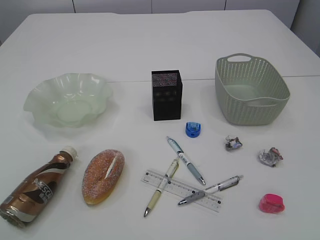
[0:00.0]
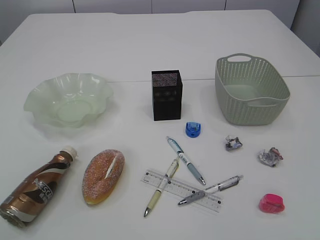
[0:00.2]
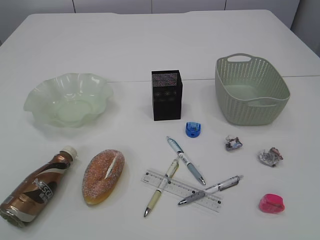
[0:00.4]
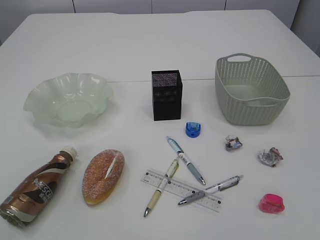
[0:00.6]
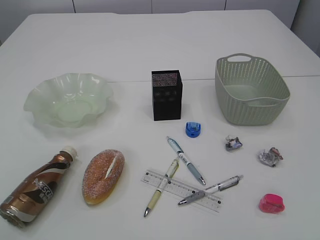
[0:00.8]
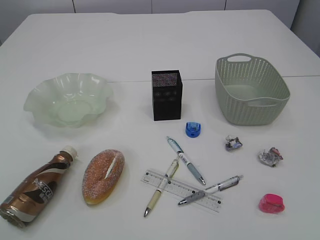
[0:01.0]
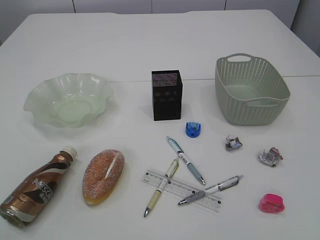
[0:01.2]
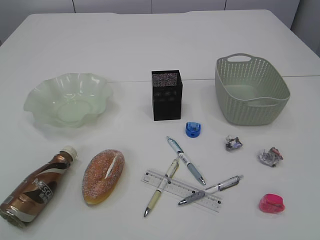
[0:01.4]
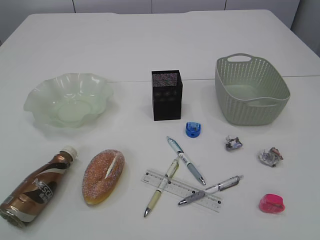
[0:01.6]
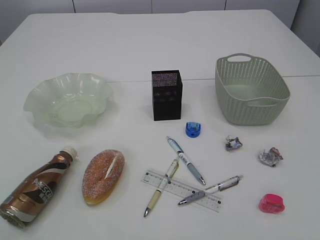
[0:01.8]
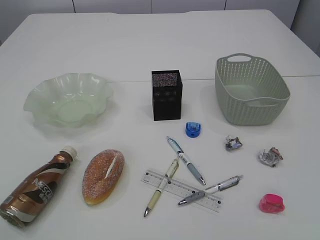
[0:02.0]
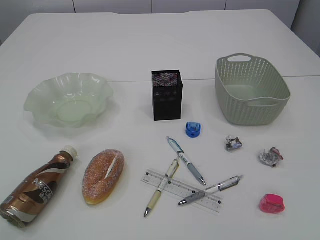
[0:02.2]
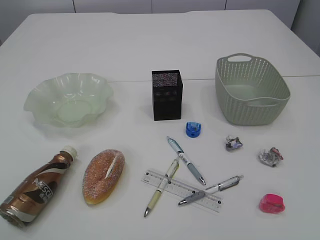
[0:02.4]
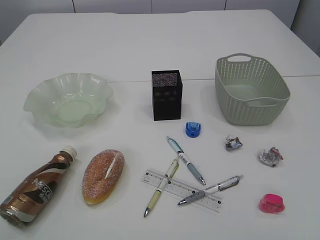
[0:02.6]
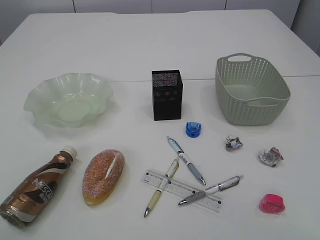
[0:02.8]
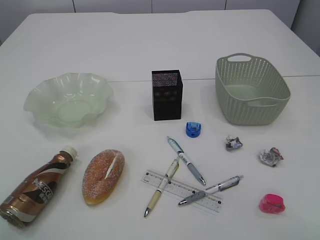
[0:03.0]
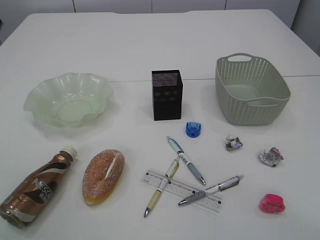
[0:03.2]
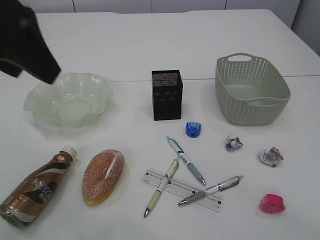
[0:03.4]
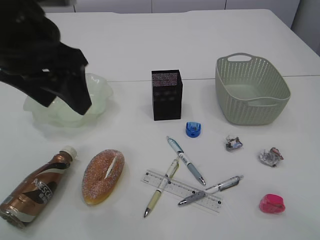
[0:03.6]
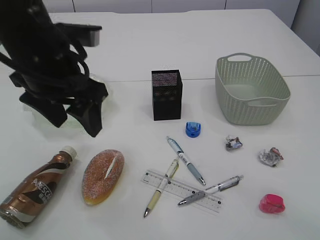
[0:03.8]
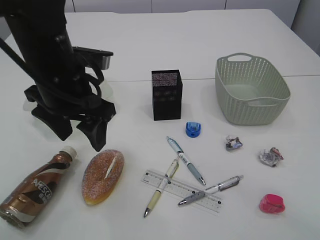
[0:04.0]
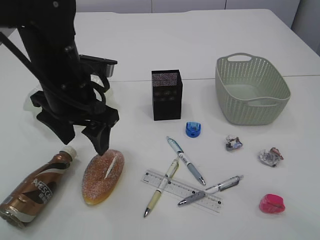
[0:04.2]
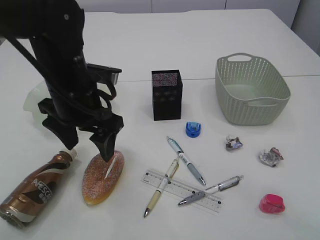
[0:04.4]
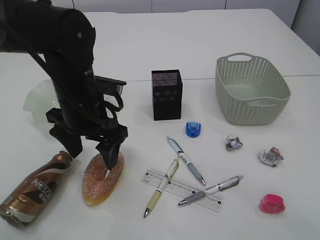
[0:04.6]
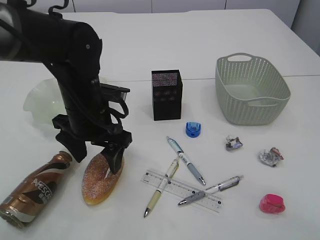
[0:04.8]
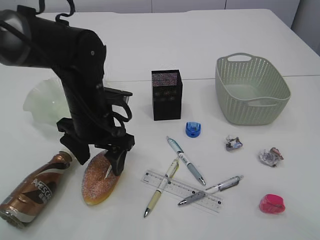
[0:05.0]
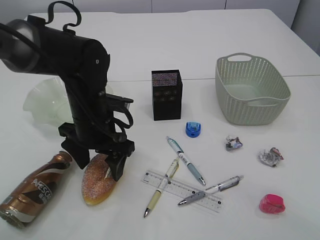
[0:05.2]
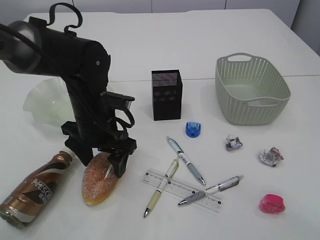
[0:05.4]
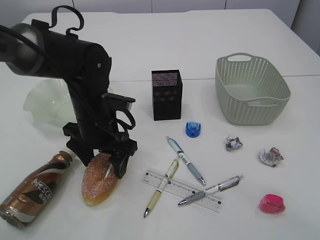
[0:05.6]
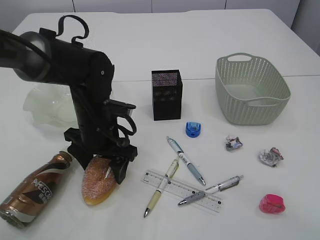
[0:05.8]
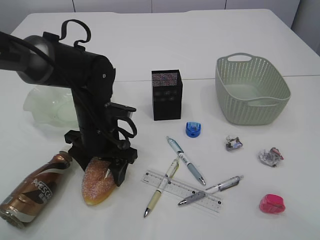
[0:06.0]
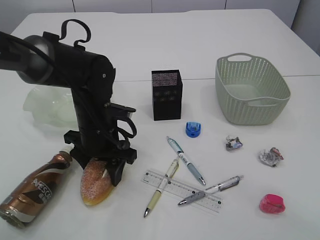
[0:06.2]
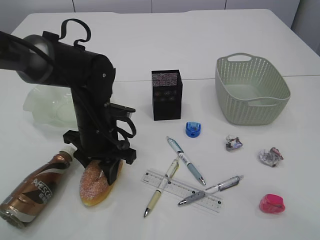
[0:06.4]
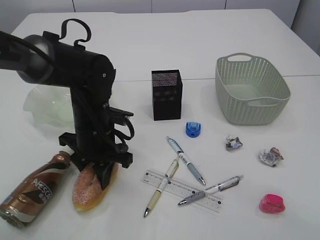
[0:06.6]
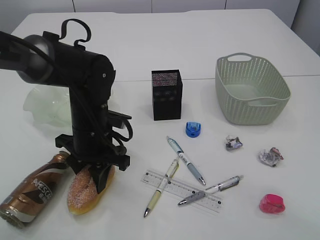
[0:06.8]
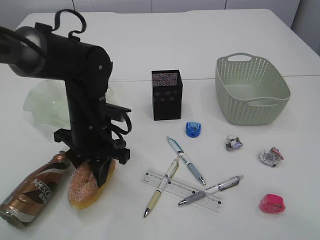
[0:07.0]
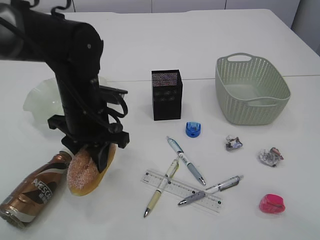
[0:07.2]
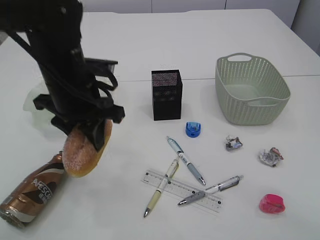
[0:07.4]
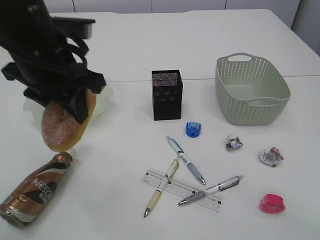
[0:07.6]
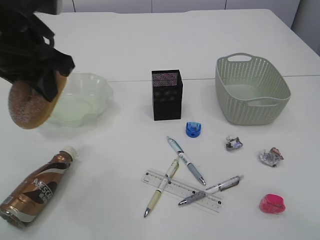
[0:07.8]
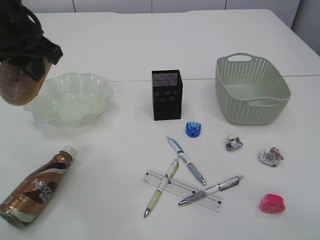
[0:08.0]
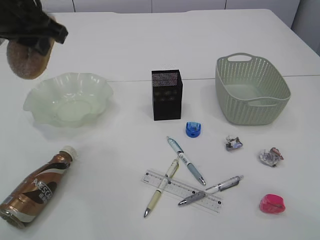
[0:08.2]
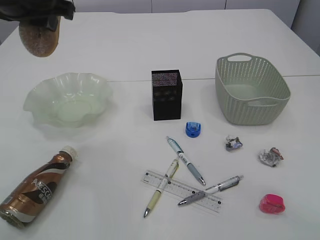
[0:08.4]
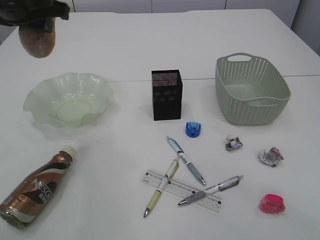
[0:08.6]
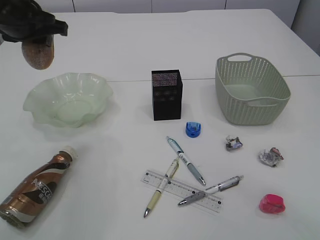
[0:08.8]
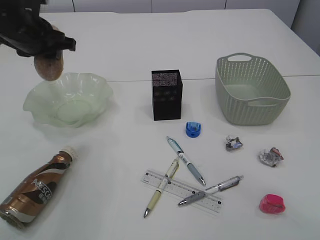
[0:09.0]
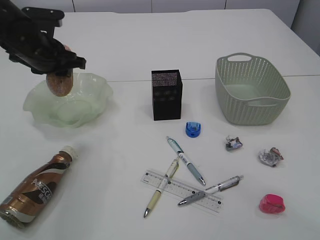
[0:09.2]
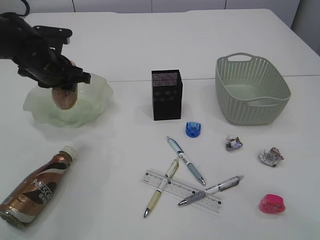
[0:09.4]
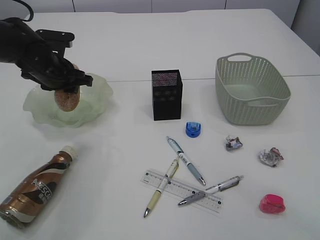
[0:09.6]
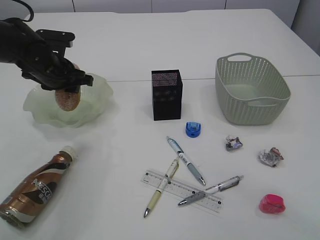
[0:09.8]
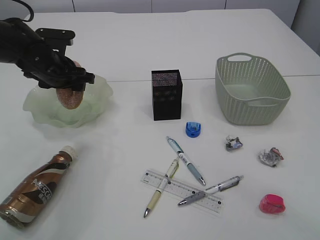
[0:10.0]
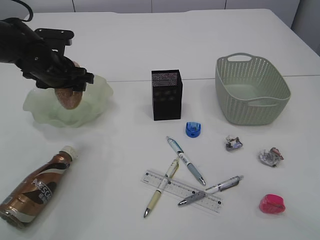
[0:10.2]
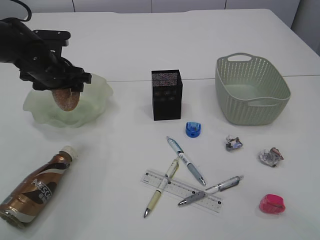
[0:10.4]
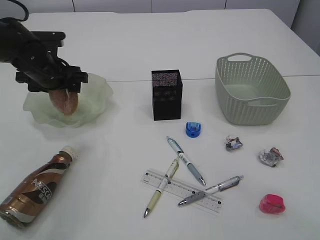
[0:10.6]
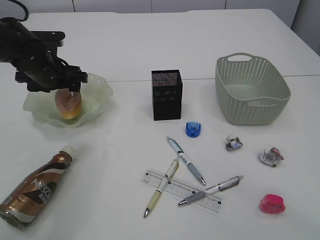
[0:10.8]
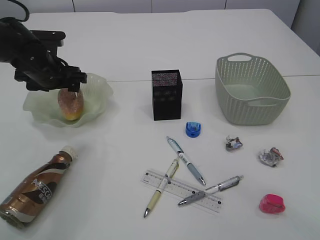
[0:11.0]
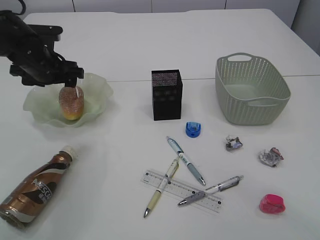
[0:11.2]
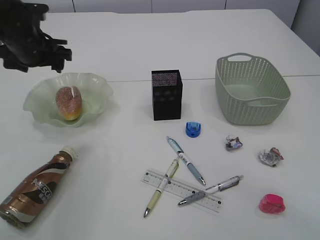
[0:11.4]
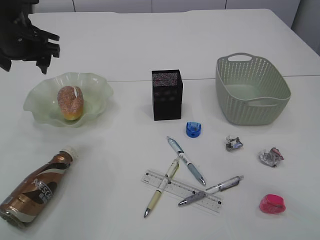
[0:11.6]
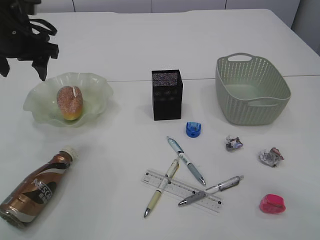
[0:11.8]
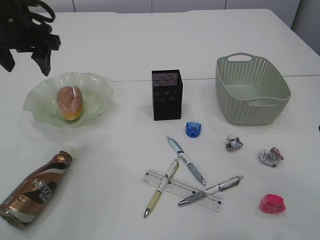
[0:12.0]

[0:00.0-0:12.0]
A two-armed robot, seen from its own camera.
Step, 0:07.6 to 0:11.2: place the bread in the plate.
0:03.0 to 0:04.4: The right gripper travels forward by some 5 cm. The left gripper is displaced downward, forward and to the right by approximately 30 cm.
0:04.4 to 0:06.0: The left gripper travels downward by about 10 cm.
0:06.0 to 0:07.6: The left gripper is displaced upward by some 15 cm, and closes up.
0:07.6 to 0:09.0: The left gripper is displaced forward and to the left by about 15 cm.
0:09.0 to 0:10.4: The left gripper heads downward, covering approximately 10 cm, and opens.
0:10.4 to 0:12.0: The left gripper is displaced upward by roughly 10 cm.

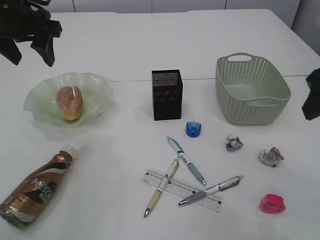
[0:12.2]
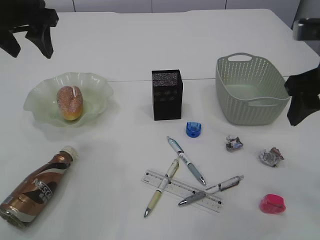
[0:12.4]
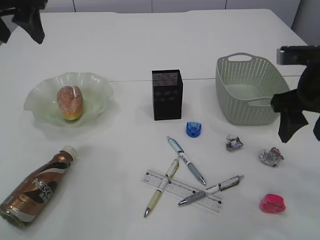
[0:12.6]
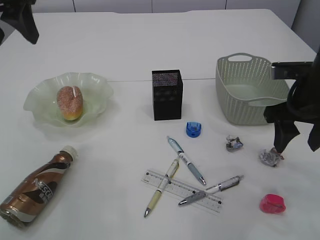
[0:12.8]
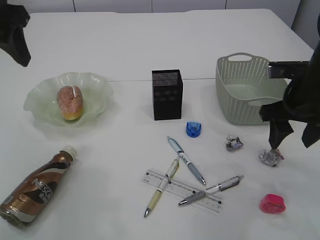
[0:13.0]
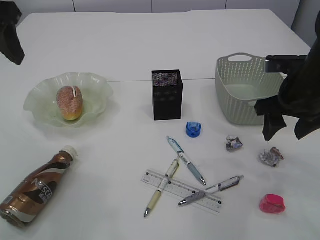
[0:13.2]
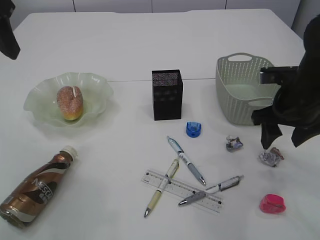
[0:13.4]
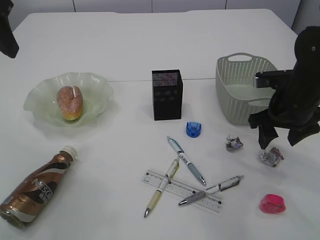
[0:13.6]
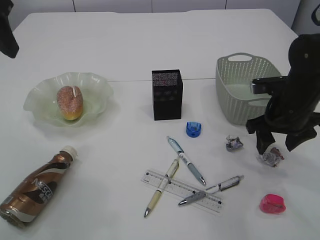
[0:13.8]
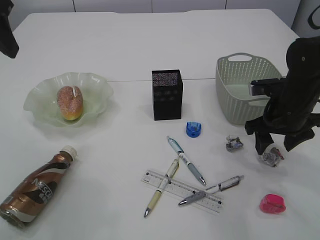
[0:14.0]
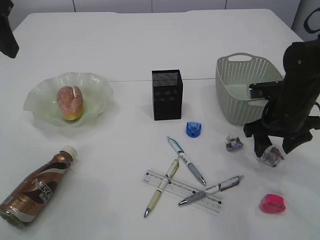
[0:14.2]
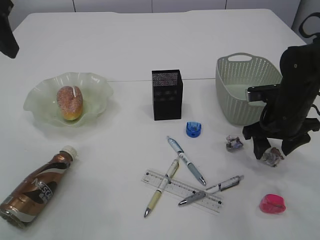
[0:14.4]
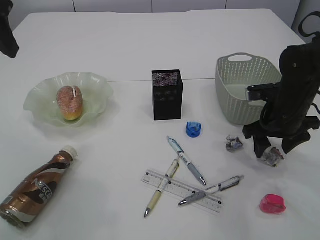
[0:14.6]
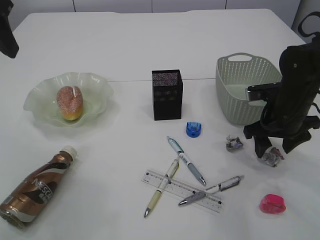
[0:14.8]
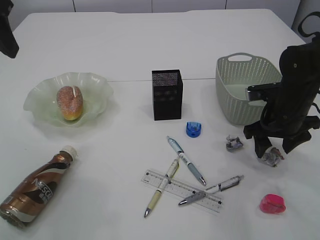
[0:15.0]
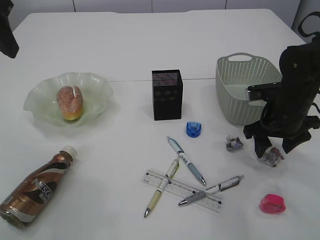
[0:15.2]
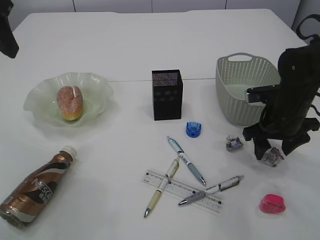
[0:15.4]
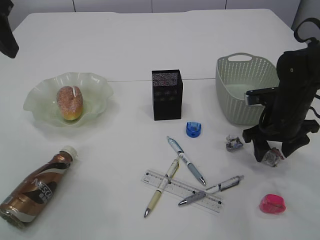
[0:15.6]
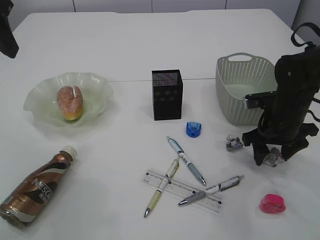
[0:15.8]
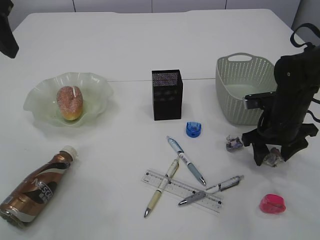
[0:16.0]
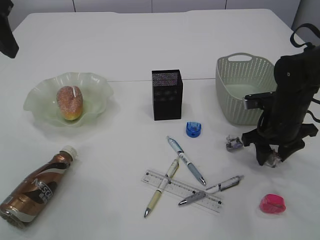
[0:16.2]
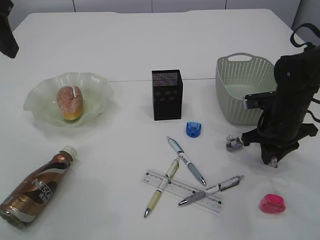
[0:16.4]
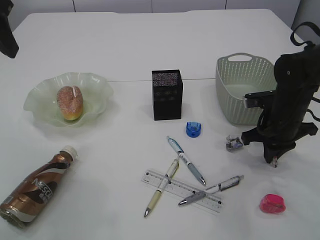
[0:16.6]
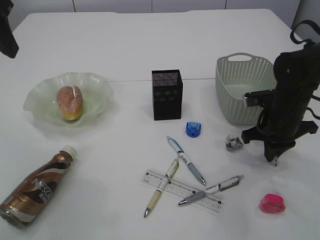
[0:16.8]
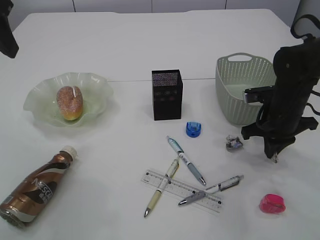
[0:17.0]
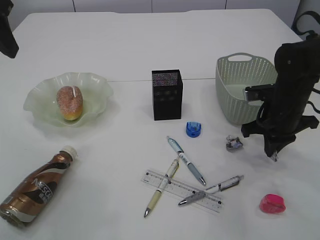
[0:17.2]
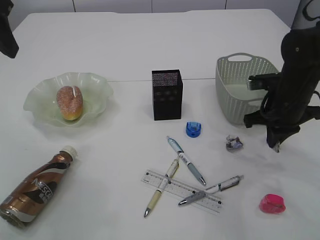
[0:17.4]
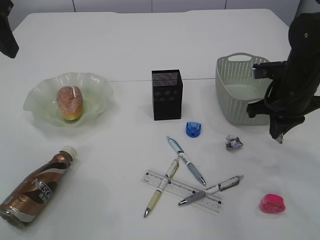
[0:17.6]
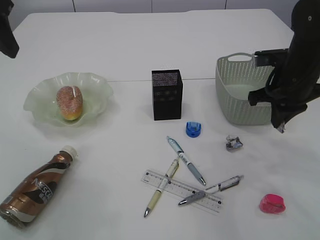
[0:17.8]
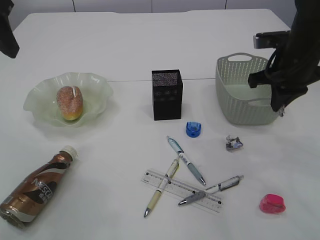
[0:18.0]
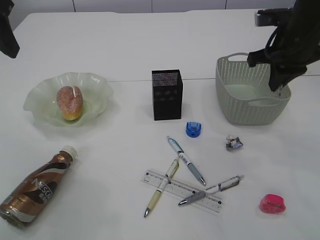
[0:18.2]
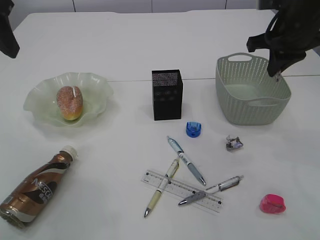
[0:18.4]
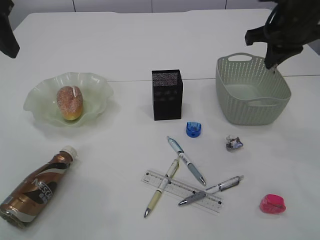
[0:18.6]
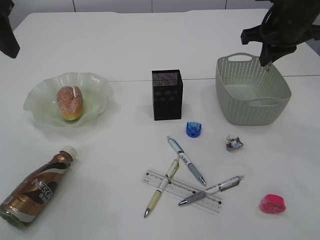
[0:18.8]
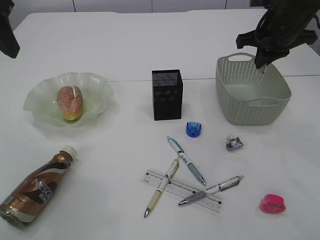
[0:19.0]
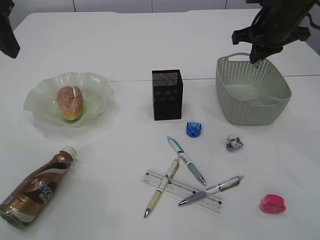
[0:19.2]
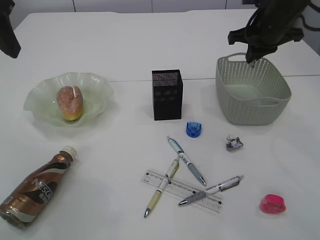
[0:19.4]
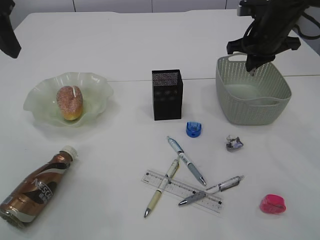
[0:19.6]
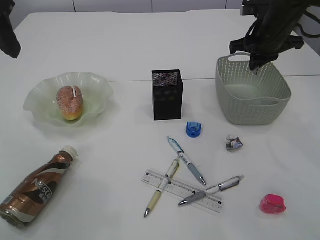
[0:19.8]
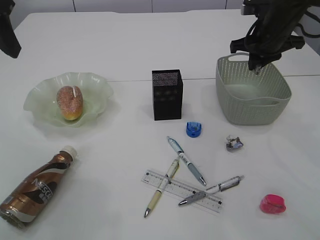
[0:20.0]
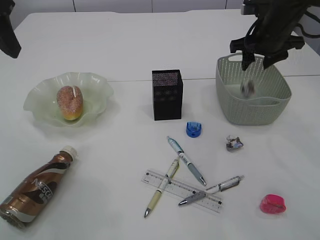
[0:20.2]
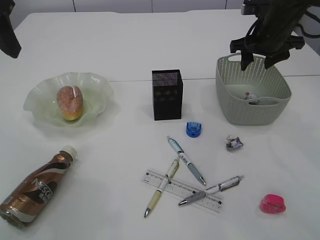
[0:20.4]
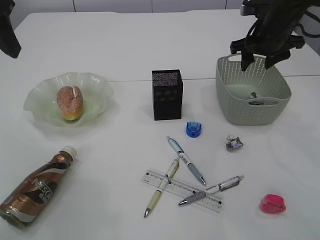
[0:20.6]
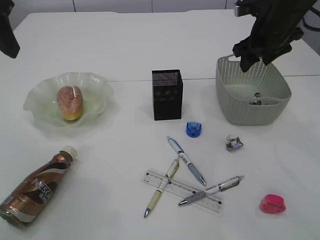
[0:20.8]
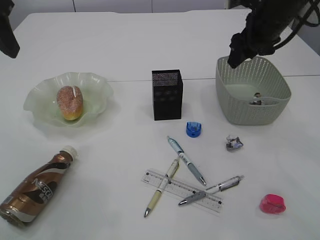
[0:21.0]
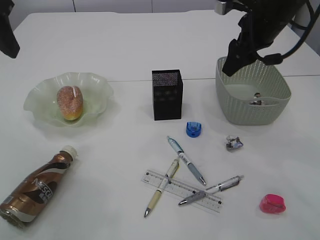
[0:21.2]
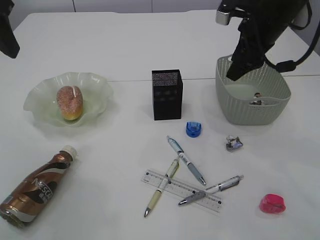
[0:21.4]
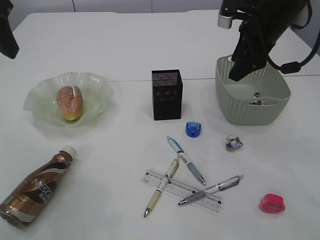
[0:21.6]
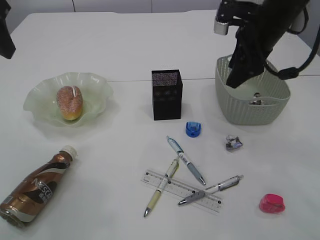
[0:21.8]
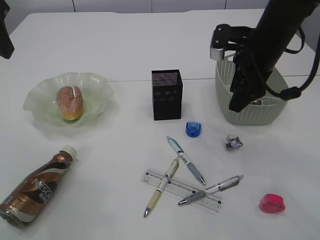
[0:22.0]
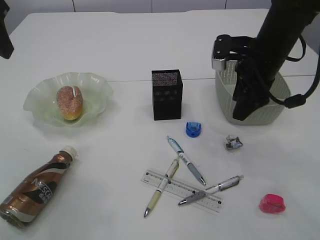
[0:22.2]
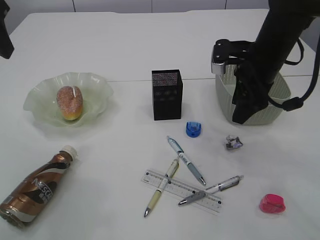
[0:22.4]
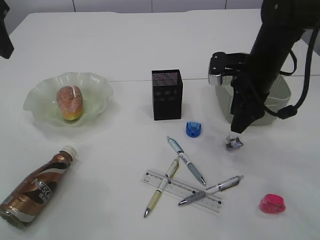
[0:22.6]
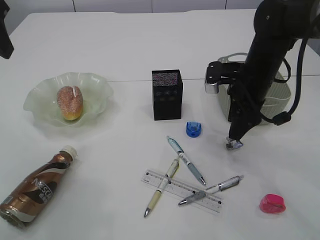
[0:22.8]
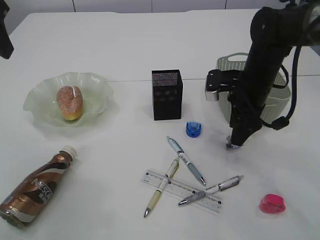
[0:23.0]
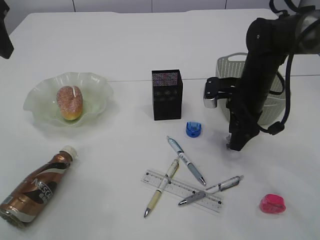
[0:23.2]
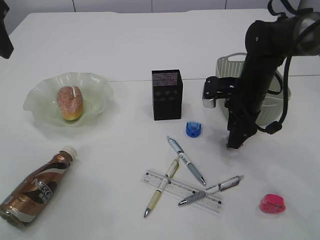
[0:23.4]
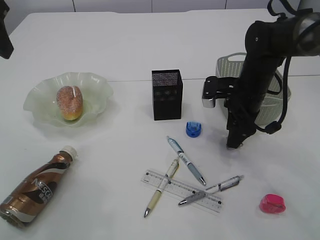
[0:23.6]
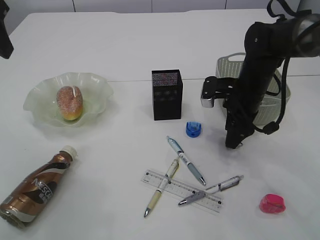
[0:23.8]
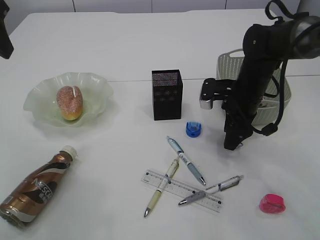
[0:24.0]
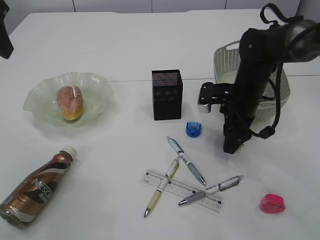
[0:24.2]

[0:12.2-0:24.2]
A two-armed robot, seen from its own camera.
Step, 0:12.2 to 0:17.4: Pick up the waste paper.
Step, 0:17.6 to 0:20.8: Place the waste paper in the basket.
0:12.2 to 0:13.8: The right gripper heads downward and forward, covering some 20 cm. Meanwhile the left gripper goes some 10 cm backward and upward.
0:13.8 to 0:15.2: The grippers make only small movements.
0:15.2 to 0:16.6: The right gripper closes its fingers.
0:16.6 to 0:18.2: The right gripper goes some 15 cm upward.
0:18.2 to 0:19.8: The right gripper shifts some 10 cm forward.
0:19.8 to 0:21.2: The right gripper ends up approximately 5 cm from where it was, and opens up.
0:21.2 to 0:22.6: The right gripper moves downward, about 10 cm.
0:22.6 to 0:24.2: The right gripper moves downward, approximately 5 cm.
